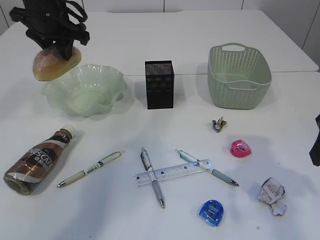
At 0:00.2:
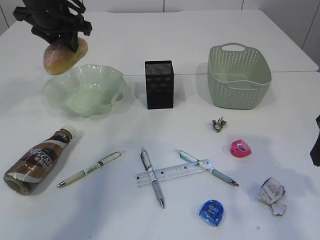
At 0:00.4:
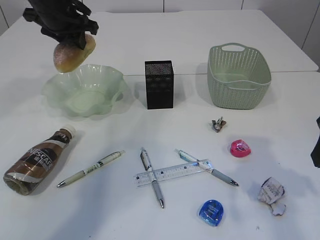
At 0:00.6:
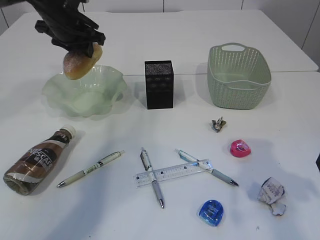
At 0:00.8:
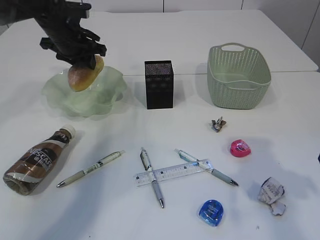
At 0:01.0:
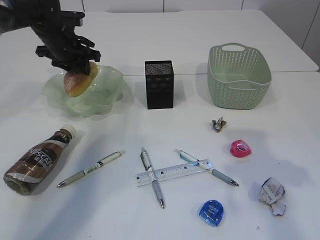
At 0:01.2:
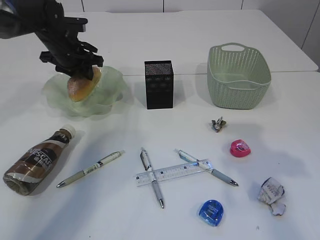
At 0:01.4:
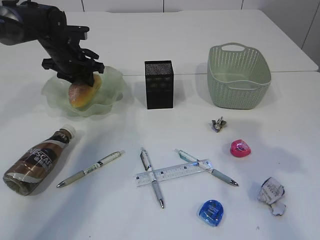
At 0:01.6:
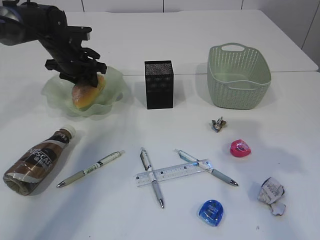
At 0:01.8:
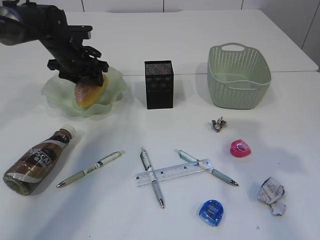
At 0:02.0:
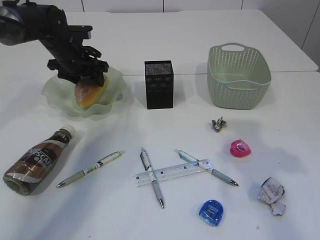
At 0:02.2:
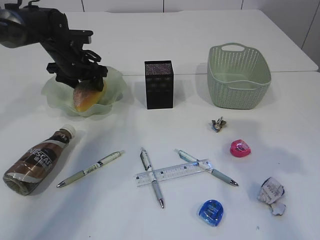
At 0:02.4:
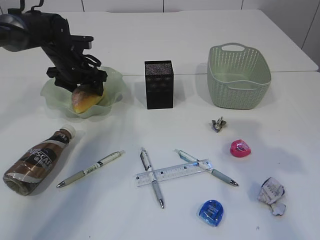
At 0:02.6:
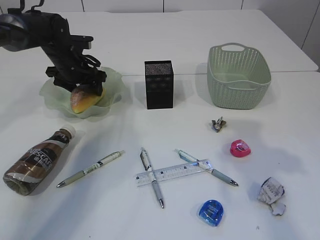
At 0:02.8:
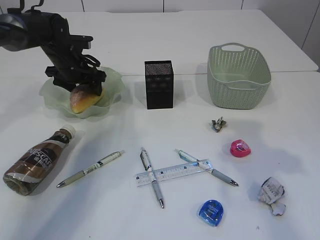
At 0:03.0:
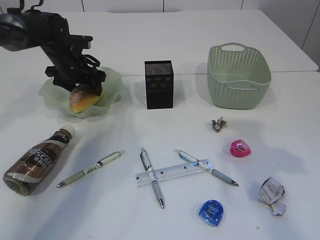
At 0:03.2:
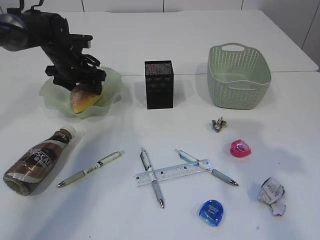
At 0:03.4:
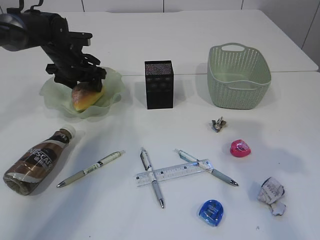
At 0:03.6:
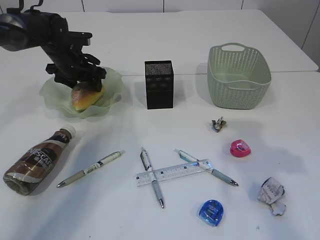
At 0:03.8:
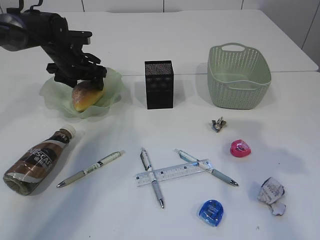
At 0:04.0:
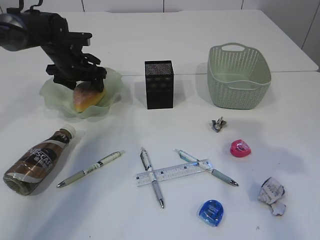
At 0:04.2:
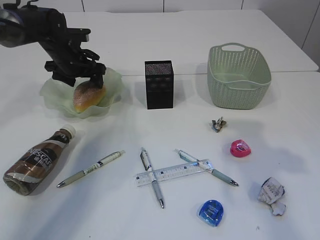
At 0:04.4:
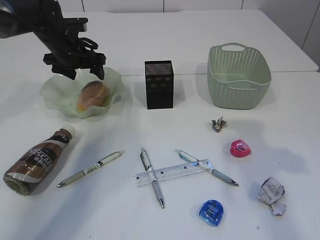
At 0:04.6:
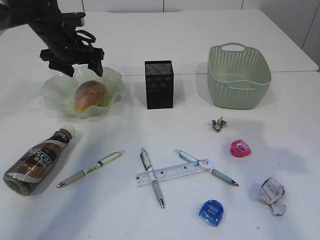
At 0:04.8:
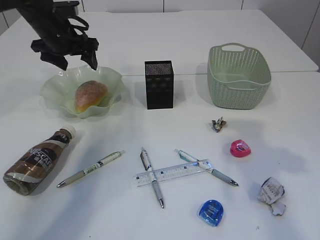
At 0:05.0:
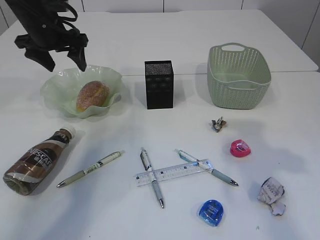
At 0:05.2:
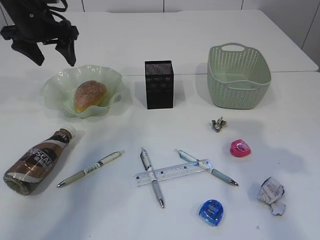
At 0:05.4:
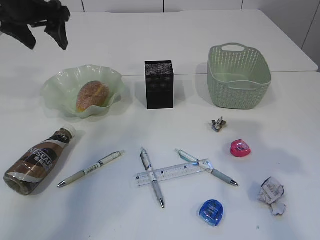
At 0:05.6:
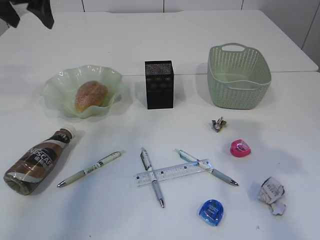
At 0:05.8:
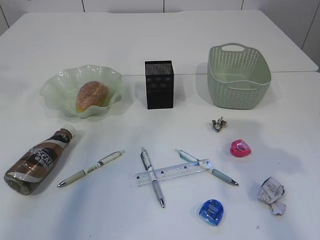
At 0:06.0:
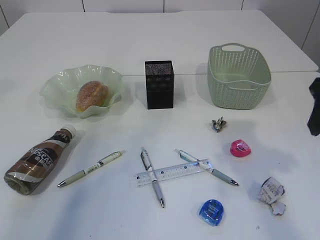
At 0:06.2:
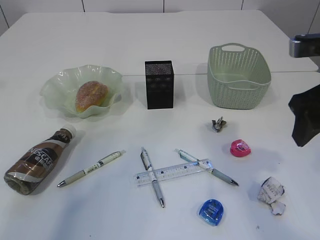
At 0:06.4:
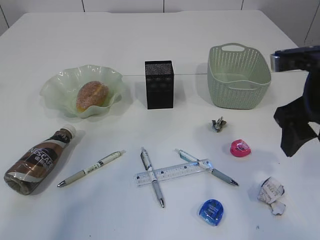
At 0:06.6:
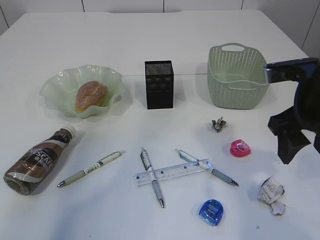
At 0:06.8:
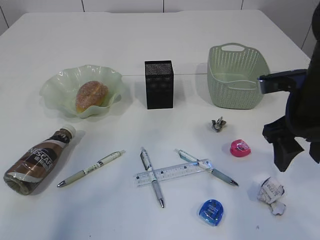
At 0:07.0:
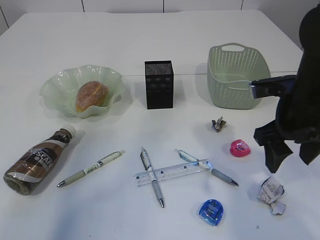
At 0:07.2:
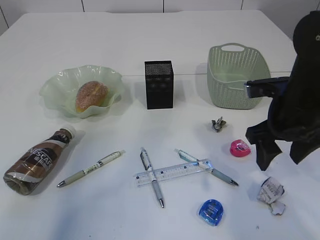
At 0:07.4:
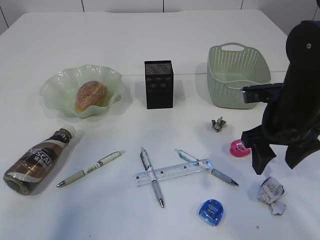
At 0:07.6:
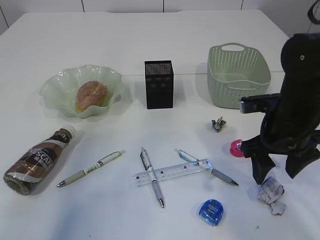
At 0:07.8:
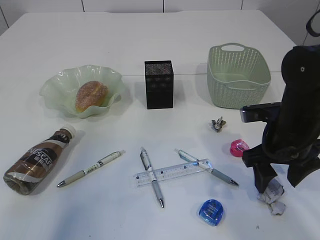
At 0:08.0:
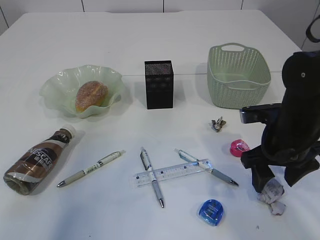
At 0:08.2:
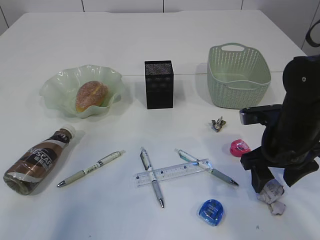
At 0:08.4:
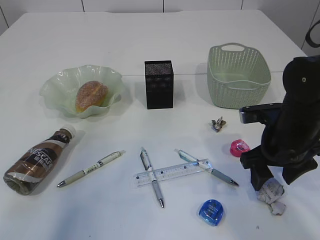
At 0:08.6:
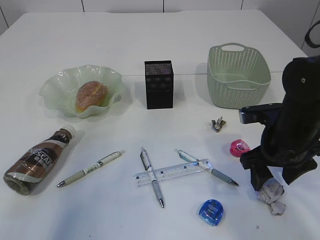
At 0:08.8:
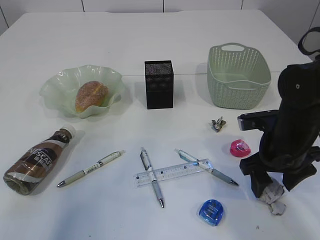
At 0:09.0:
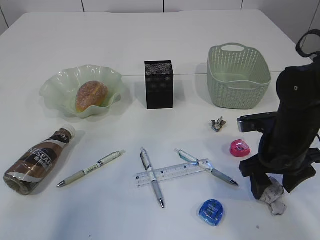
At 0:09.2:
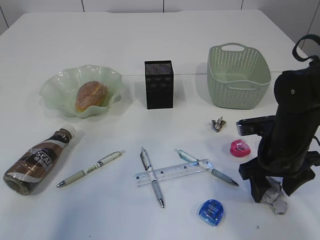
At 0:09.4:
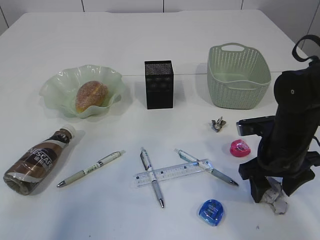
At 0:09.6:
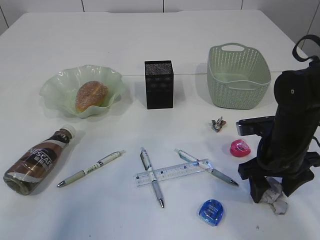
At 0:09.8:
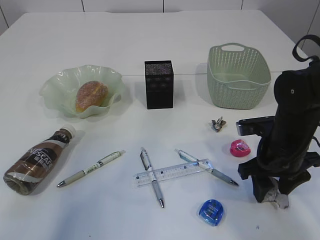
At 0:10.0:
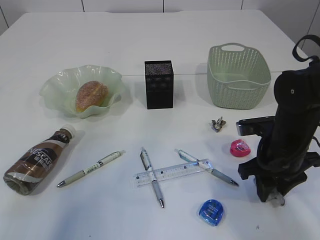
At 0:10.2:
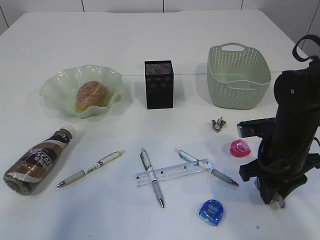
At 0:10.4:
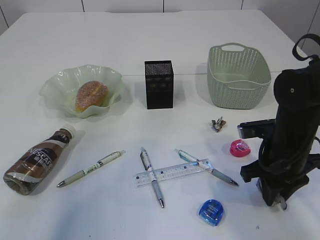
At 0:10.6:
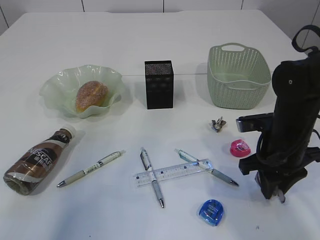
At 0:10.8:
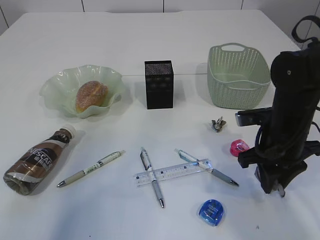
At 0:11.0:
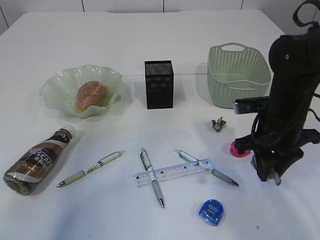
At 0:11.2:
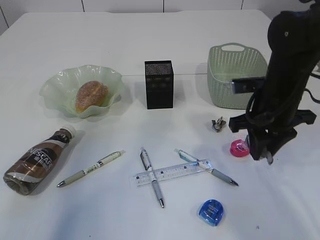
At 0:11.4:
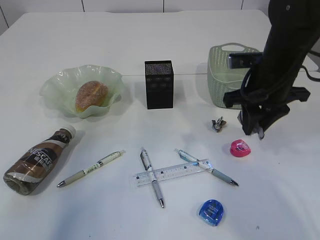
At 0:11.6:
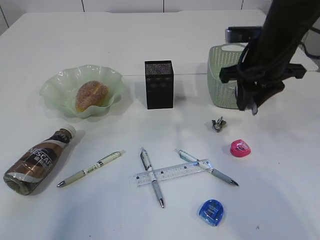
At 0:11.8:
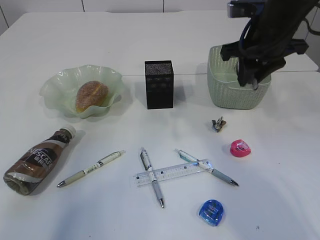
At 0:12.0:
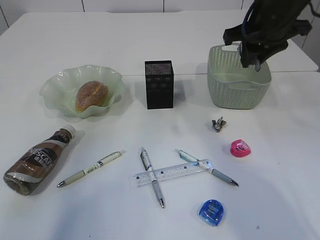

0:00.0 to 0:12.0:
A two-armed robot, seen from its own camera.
Step, 0:00.0 to 0:05.2: place the bread in the plate.
Step, 0:05.4 to 0:11.4: Pick up the waste paper.
0:00.0 to 0:01.6: The right gripper goes some 5 cm upward. The left gripper shifts approximately 15 cm downward and forward.
0:01.6 to 0:03.0: The left gripper opens.
0:03.0 to 0:04.4: The grippers stay close to where they were, moving slightly.
0:04.4 to 0:06.0: The left gripper is displaced upward and backward by roughly 30 cm.
0:06.0 to 0:07.6: The right gripper moves downward, to the left and forward, approximately 15 cm.
0:07.6 to 0:09.0: The grippers stay close to where they were, moving slightly.
0:09.0 to 0:10.4: The right gripper closes up.
0:10.4 to 0:12.0: The right gripper is displaced upward and forward by approximately 20 cm.

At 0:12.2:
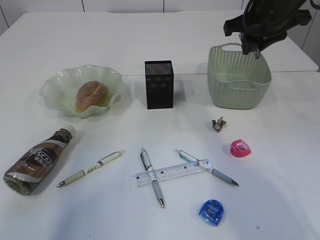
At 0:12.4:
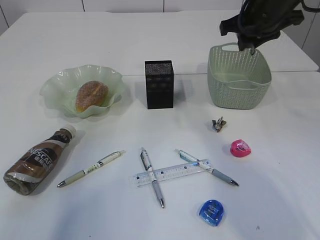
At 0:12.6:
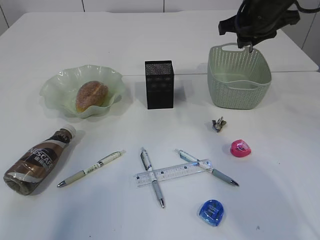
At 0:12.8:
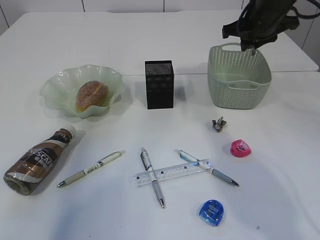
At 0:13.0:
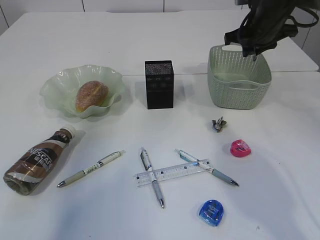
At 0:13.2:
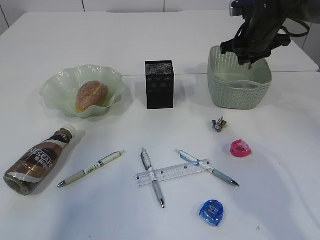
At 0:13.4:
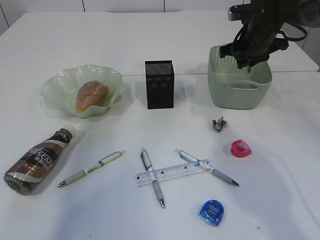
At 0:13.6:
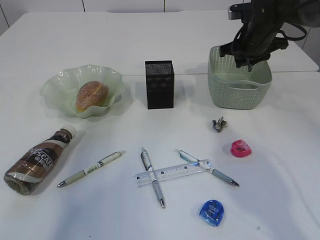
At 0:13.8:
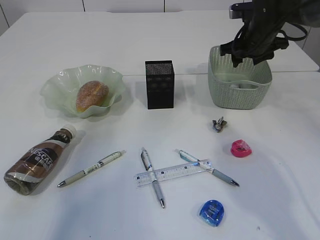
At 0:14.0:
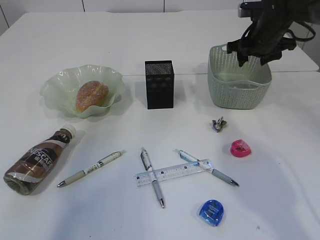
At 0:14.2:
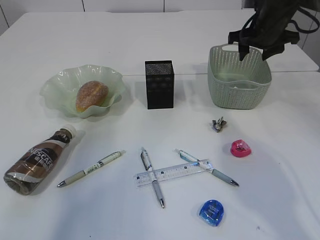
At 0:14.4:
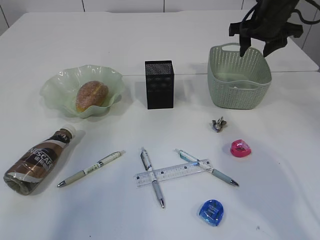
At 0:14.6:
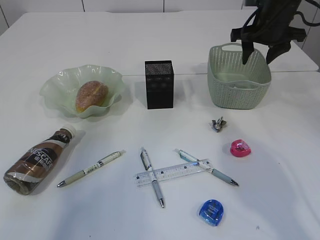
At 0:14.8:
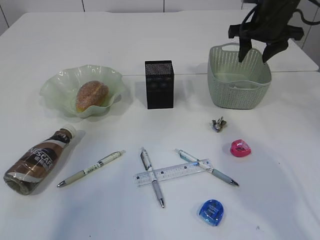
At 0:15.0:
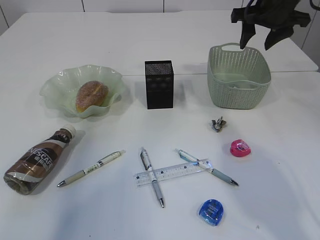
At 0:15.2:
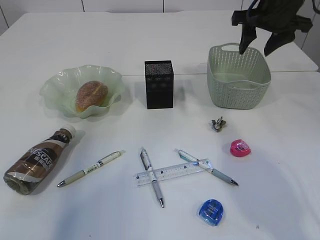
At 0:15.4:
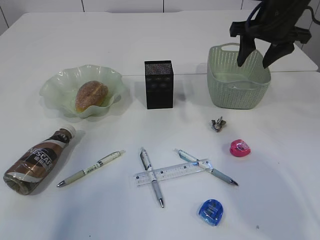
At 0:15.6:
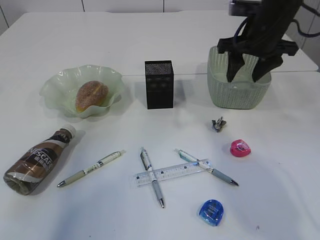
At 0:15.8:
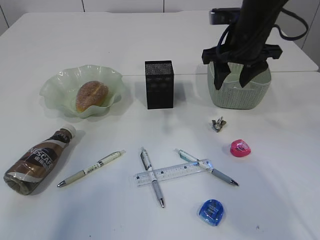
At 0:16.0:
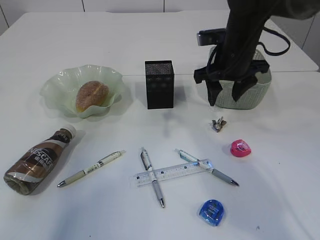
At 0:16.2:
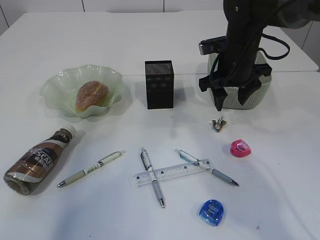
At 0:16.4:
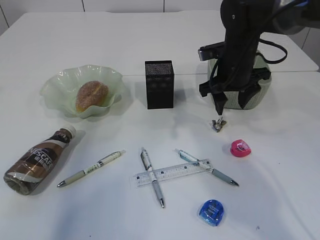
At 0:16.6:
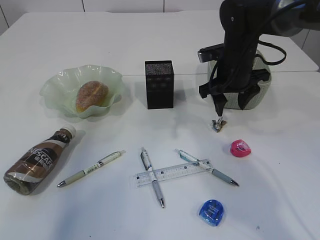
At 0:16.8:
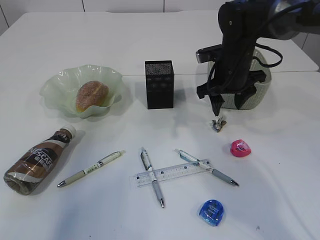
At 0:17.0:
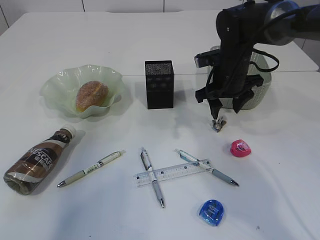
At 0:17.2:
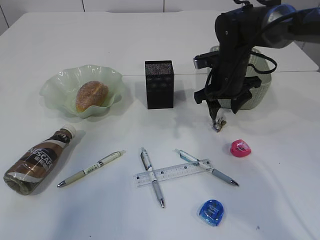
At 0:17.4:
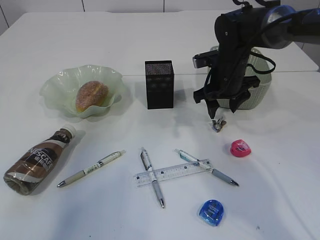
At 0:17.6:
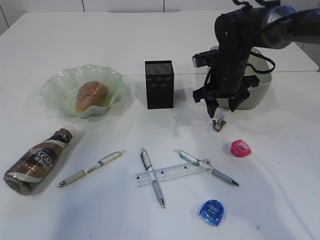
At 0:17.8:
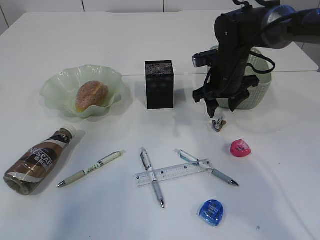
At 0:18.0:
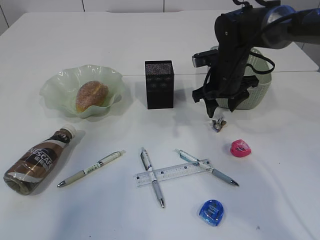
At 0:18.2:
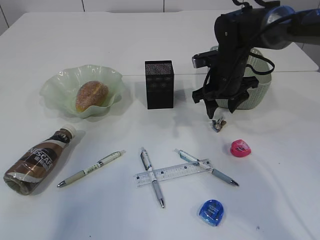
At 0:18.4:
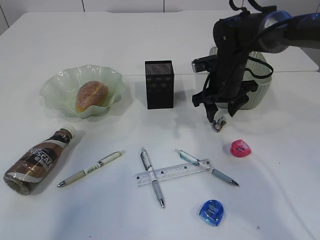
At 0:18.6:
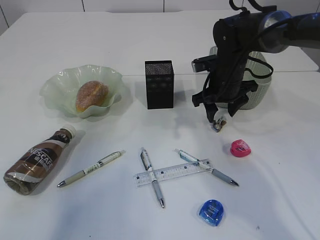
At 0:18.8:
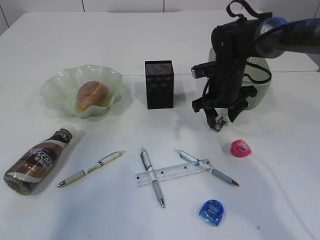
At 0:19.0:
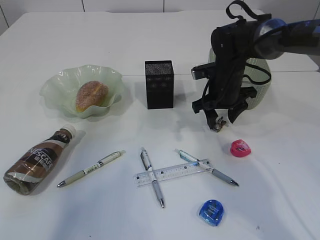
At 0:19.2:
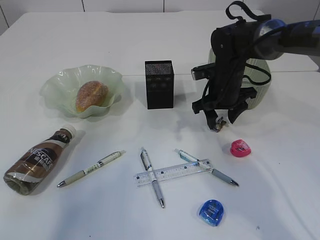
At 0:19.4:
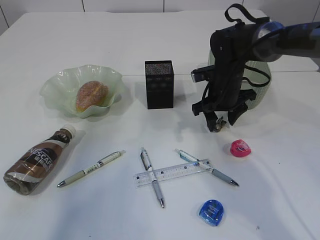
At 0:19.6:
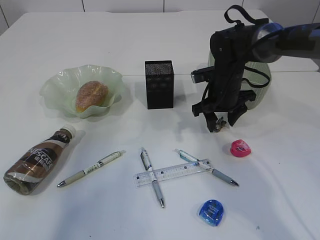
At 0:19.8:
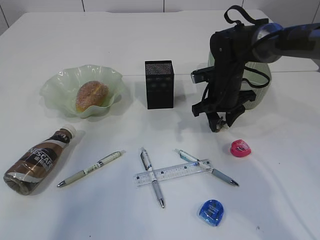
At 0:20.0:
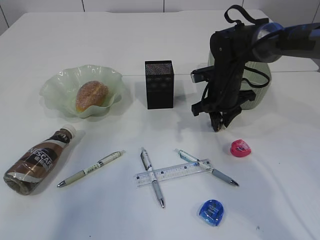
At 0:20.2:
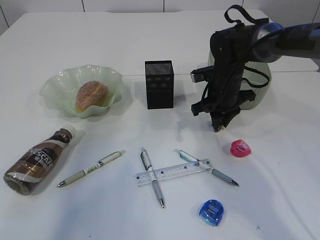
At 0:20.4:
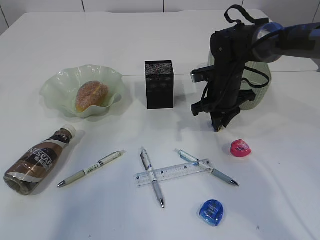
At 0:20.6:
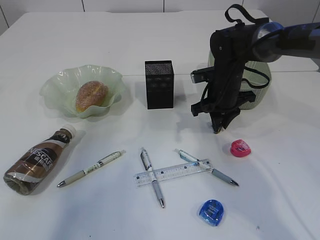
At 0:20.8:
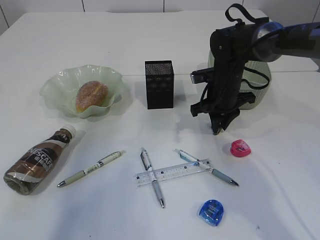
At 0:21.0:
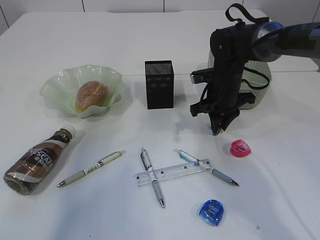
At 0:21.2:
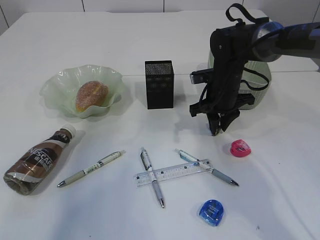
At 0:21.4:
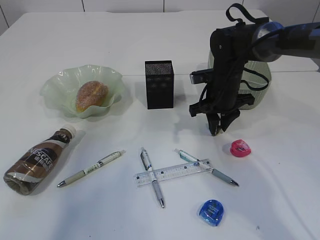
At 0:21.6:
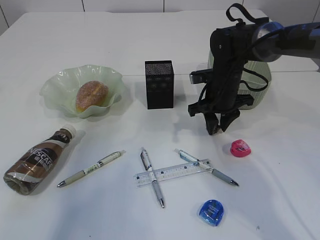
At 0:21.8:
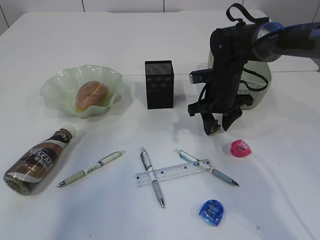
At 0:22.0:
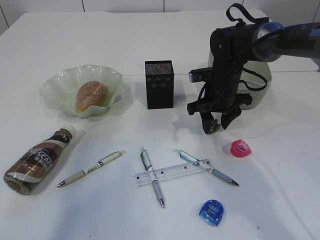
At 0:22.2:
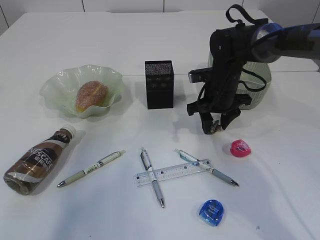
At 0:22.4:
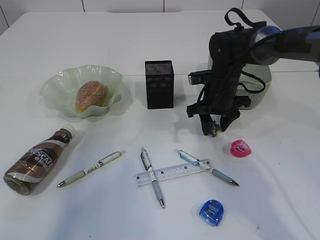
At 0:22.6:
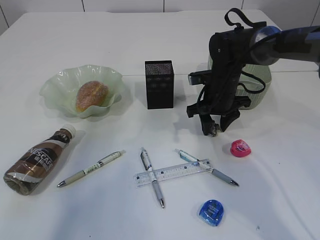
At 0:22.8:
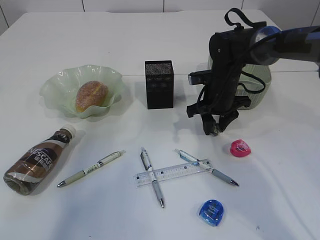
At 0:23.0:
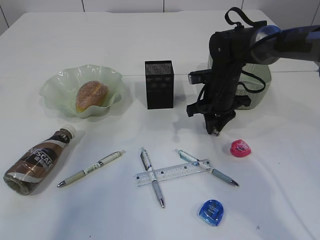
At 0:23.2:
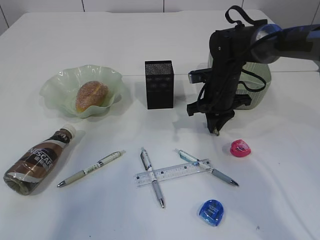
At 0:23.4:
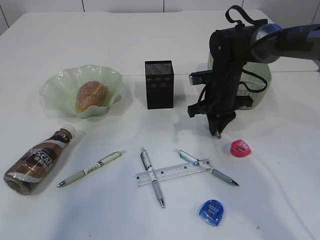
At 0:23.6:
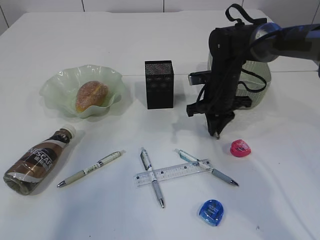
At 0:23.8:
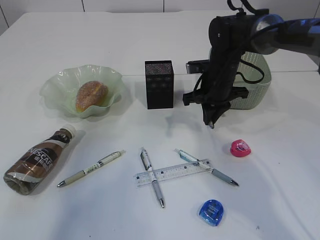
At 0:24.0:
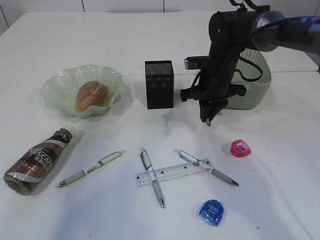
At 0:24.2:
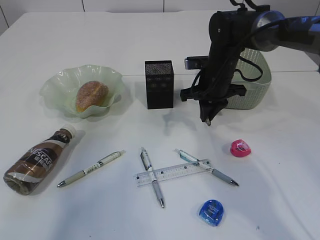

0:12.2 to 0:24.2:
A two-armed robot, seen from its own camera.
Step, 0:12.2 to 0:14.6: Place the waste paper in the basket.
0:12.2 to 0:13.8: The right gripper shifts approximately 15 cm downward and forward, and opens its fingers.
0:13.8 to 0:15.2: The right gripper is displaced upward by approximately 10 cm.
0:15.2 to 0:16.6: The right gripper goes roughly 15 cm downward and to the left.
0:16.6 to 0:18.2: There are only small adjustments of the grippers.
0:18.2 to 0:19.8: The grippers move only a little.
0:19.8 to 0:21.2: The right gripper closes up.
0:21.2 to 0:22.6: The right gripper opens its fingers.
0:22.6 to 0:24.2: The right gripper closes its fingers.
